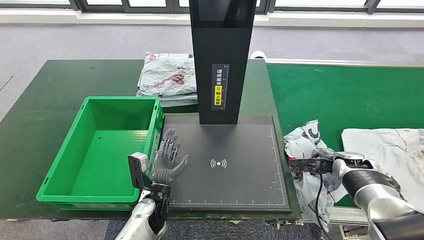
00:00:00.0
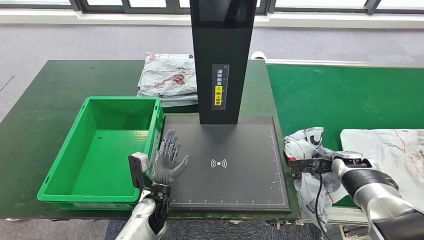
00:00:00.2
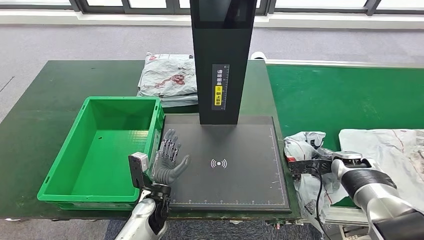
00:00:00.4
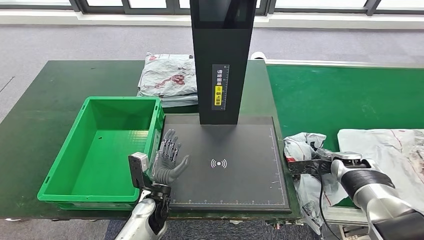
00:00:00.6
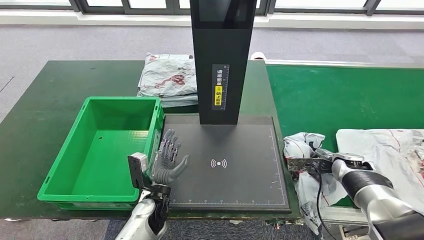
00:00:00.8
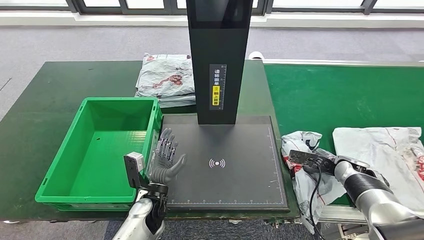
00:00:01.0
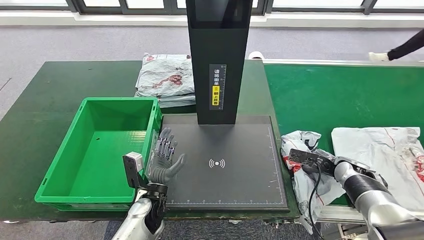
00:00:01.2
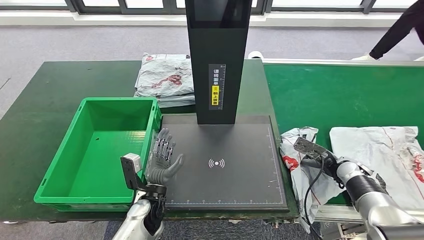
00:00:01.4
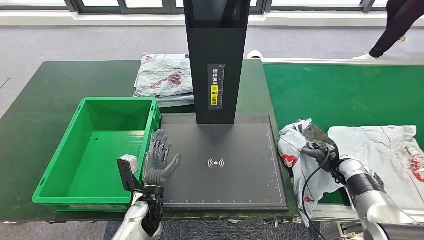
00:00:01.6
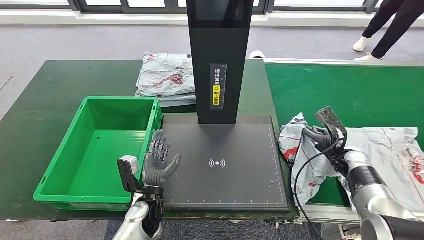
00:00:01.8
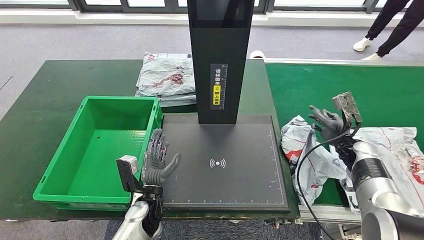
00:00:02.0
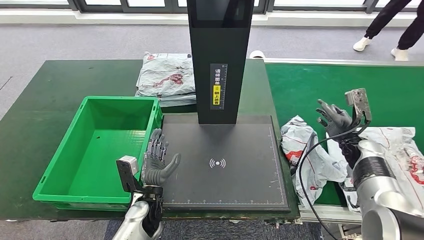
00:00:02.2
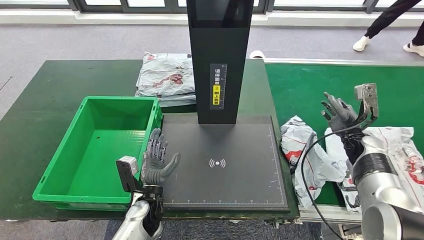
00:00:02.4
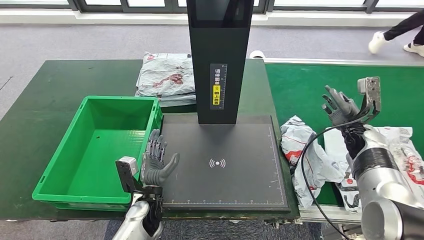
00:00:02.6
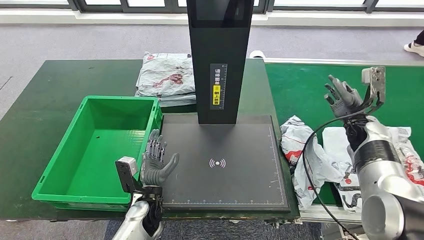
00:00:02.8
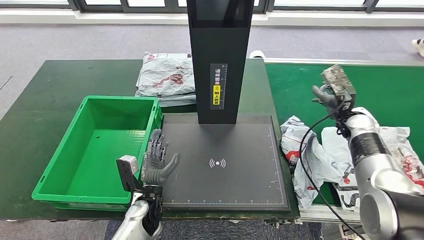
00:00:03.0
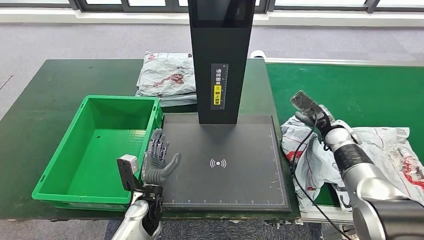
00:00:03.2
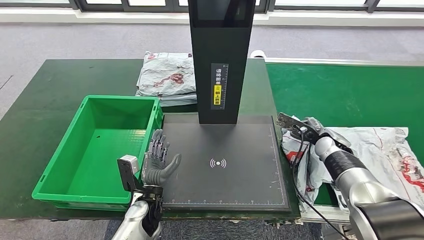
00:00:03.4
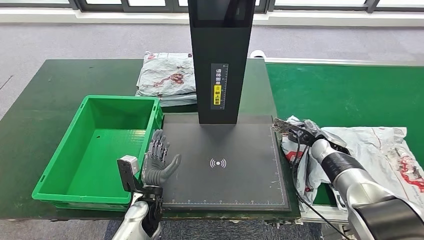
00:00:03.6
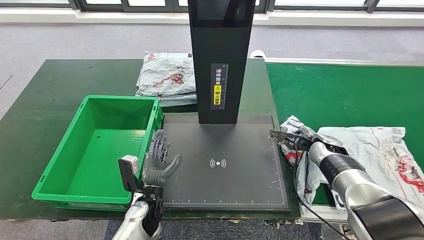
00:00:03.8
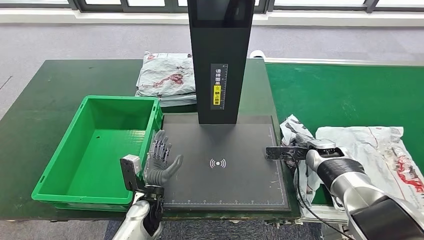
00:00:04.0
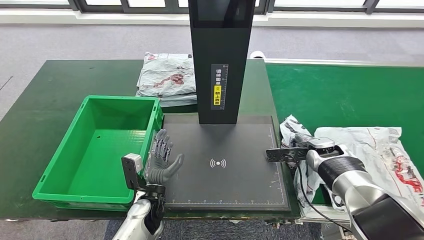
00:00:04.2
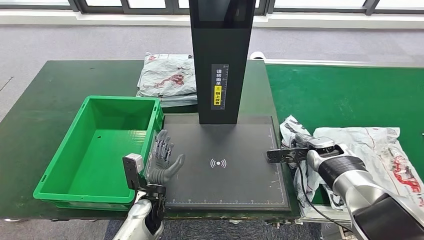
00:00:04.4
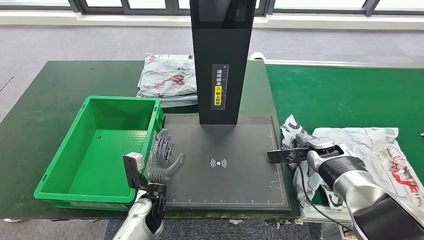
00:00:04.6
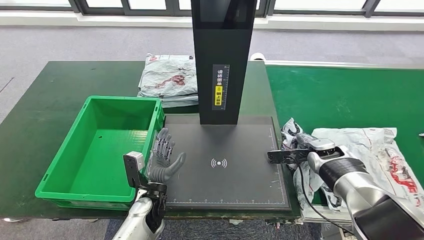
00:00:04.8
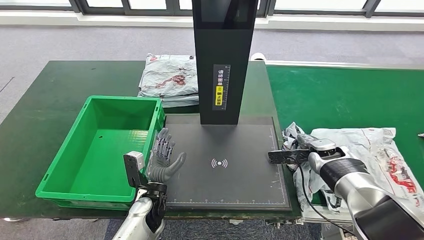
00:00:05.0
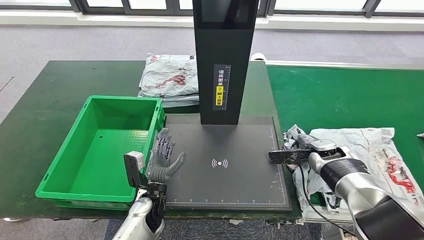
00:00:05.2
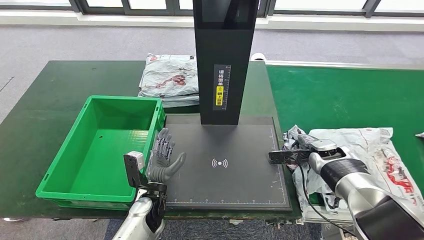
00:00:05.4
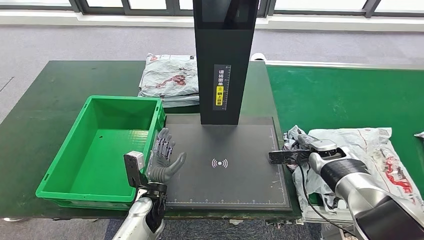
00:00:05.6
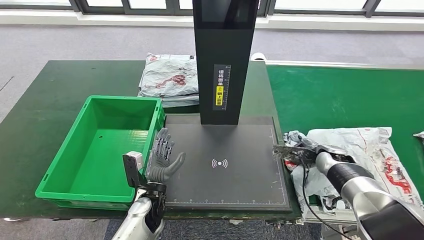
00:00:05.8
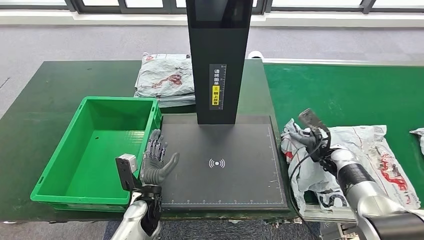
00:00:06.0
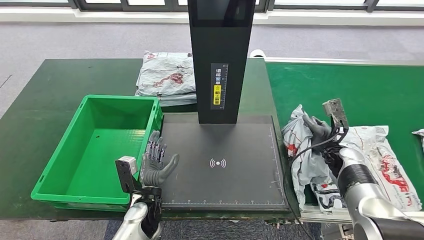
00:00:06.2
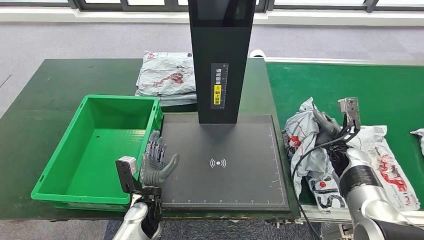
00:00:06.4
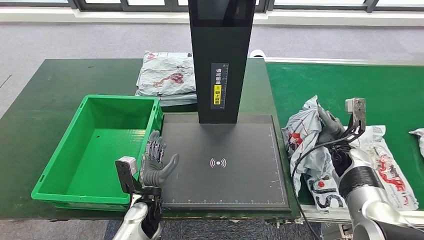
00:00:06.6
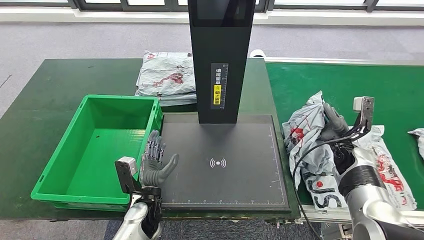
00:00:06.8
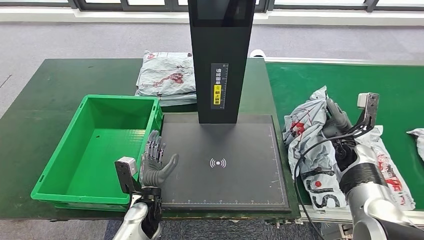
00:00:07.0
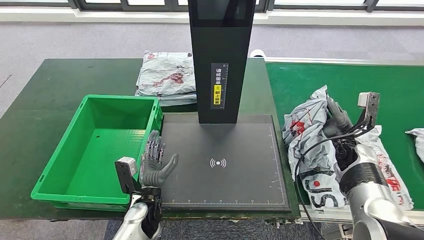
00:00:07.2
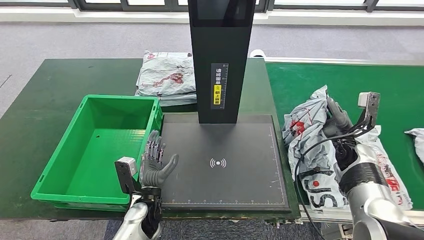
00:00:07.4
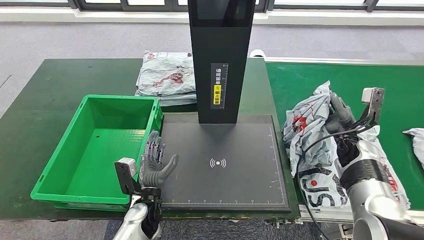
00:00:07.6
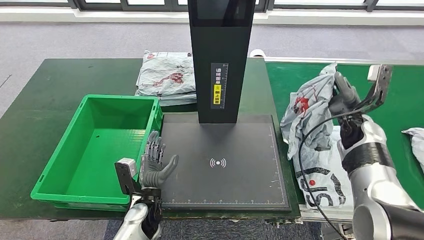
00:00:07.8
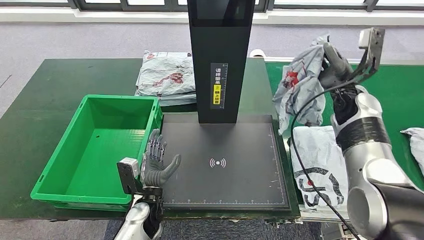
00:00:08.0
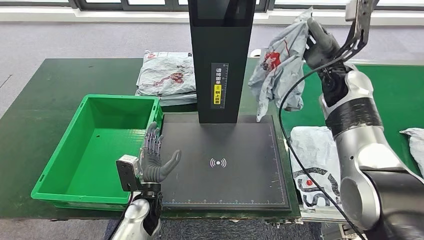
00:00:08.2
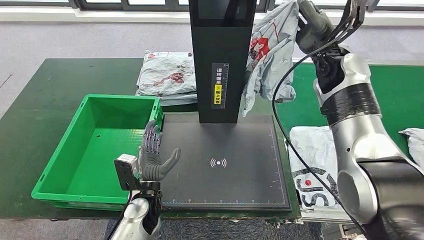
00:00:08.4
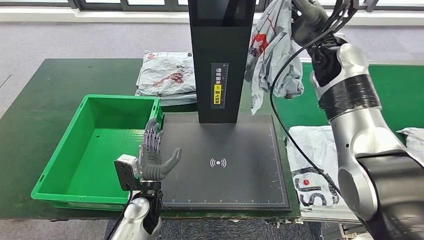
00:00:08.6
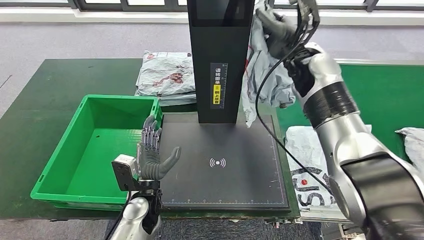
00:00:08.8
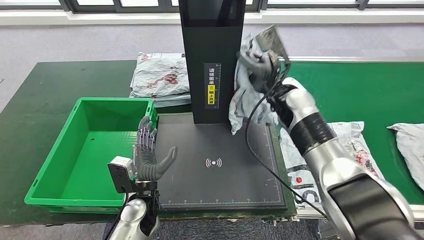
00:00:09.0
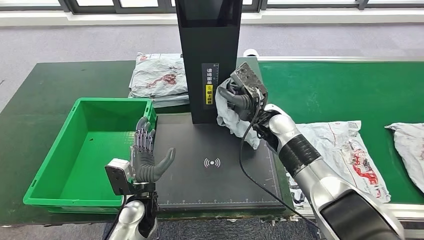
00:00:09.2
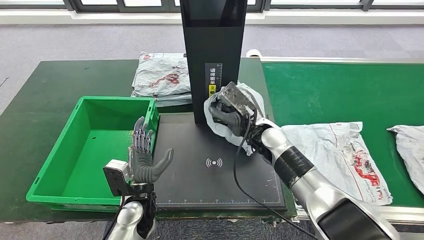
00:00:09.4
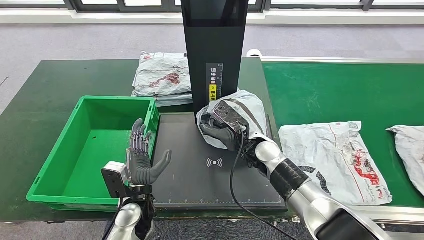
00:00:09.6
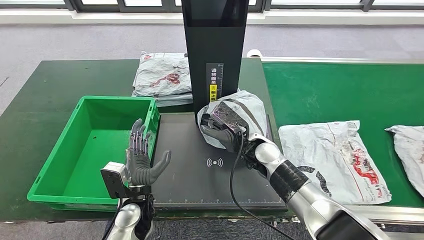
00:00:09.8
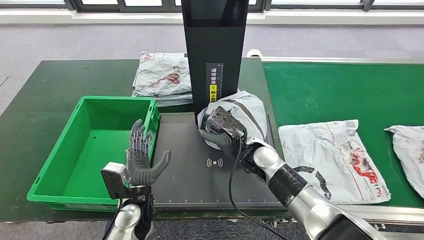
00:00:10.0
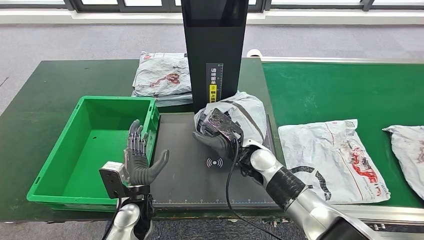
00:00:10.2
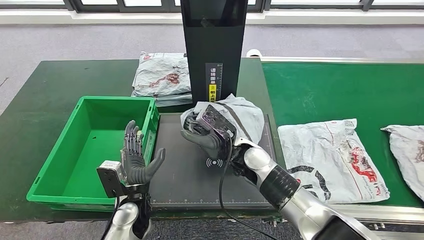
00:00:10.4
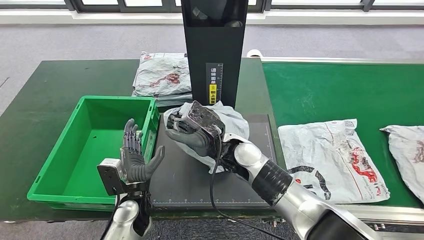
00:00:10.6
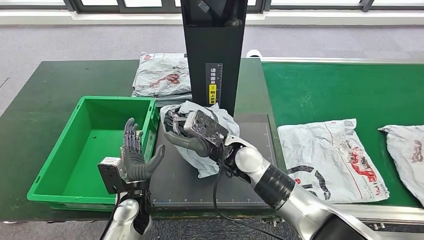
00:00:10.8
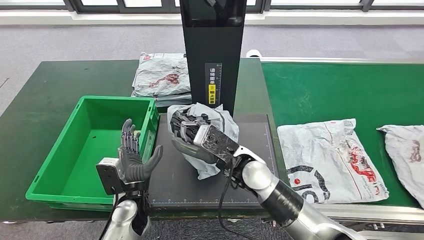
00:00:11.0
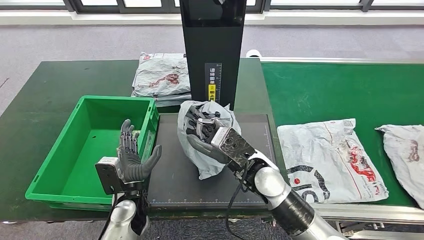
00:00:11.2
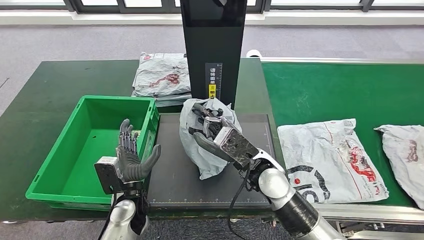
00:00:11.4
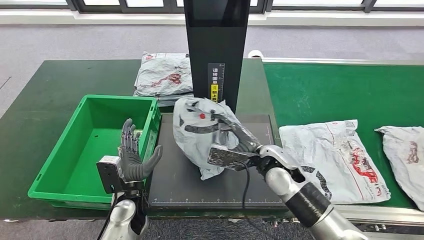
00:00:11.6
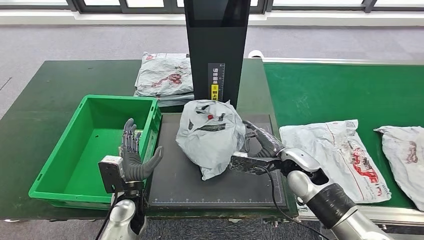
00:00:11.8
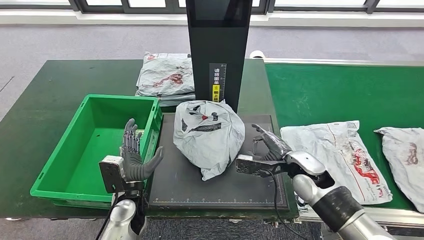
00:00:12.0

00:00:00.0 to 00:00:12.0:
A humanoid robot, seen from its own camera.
Step, 00:00:00.0 to 00:00:08.6: Take the parcel off the conveyor belt.

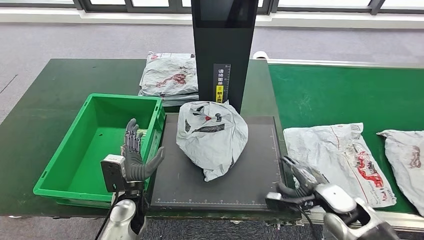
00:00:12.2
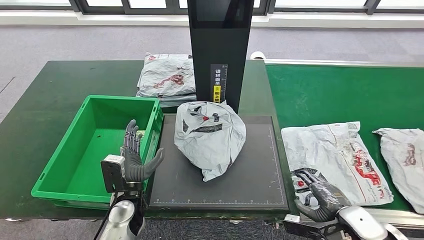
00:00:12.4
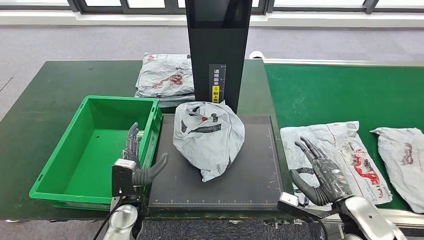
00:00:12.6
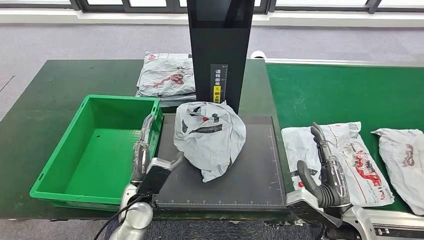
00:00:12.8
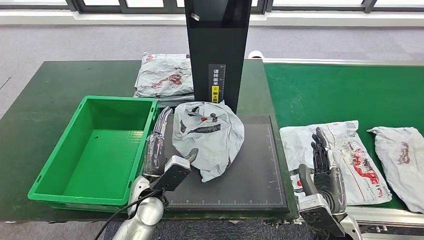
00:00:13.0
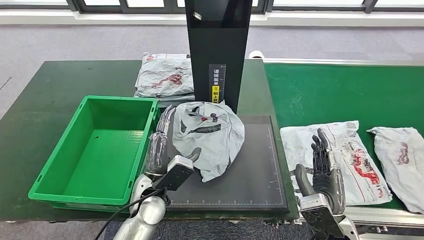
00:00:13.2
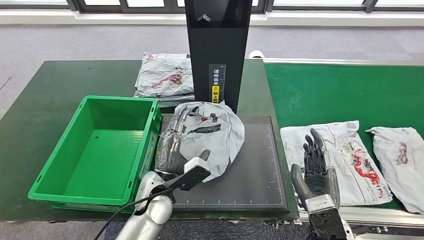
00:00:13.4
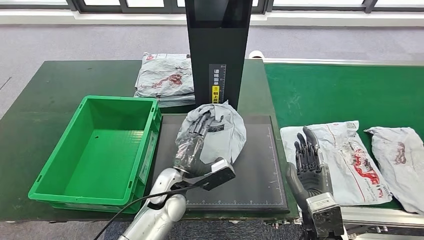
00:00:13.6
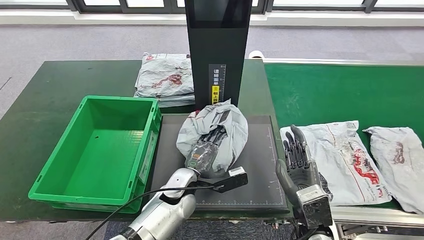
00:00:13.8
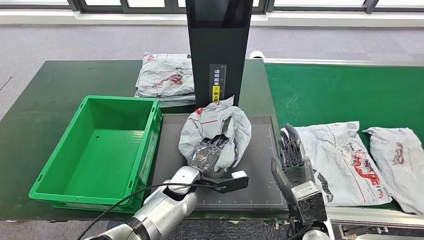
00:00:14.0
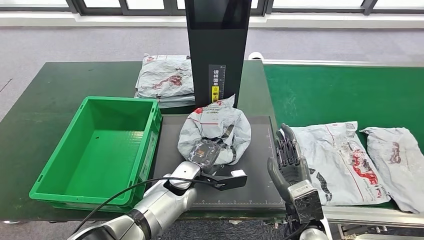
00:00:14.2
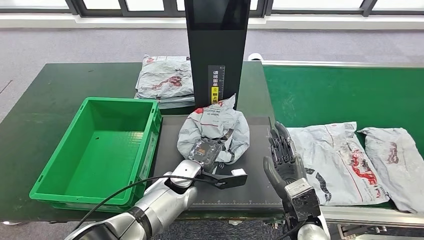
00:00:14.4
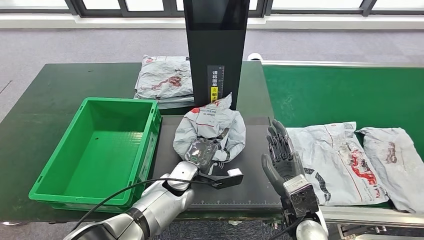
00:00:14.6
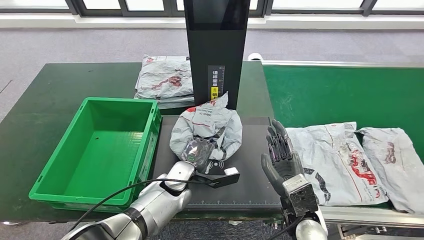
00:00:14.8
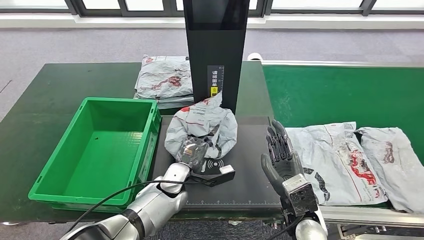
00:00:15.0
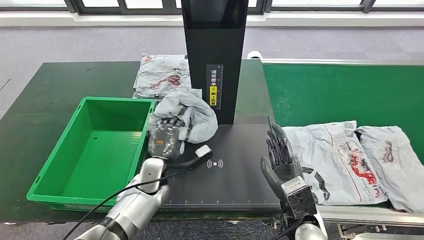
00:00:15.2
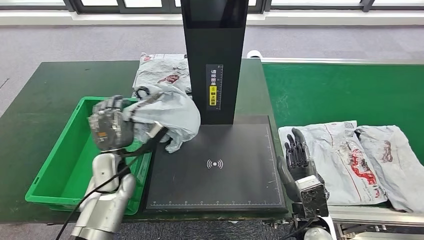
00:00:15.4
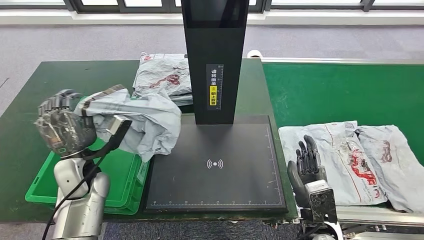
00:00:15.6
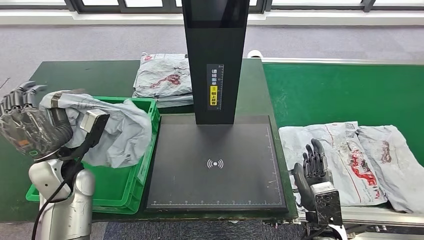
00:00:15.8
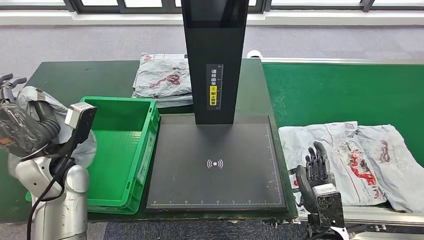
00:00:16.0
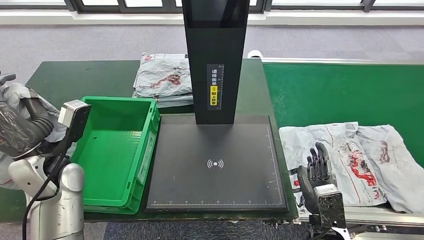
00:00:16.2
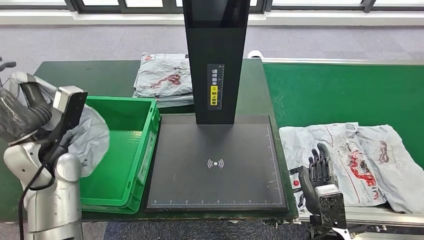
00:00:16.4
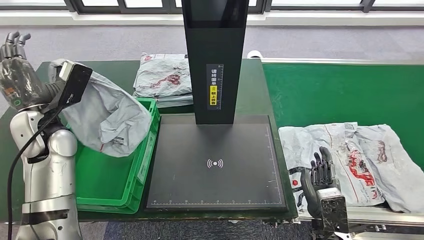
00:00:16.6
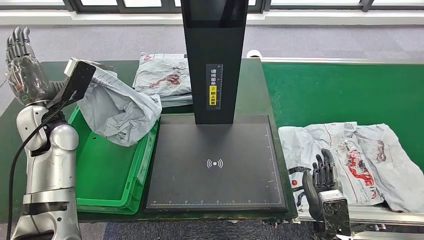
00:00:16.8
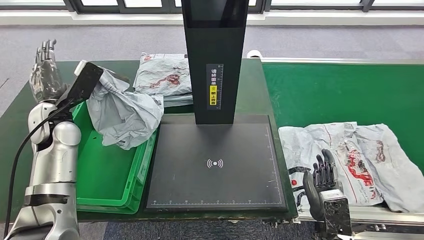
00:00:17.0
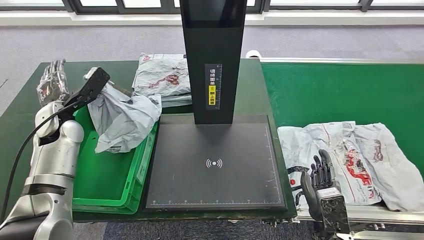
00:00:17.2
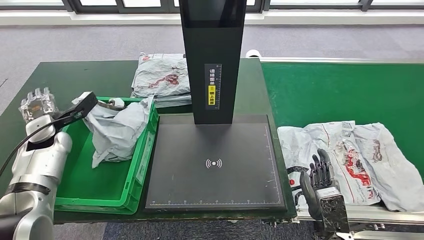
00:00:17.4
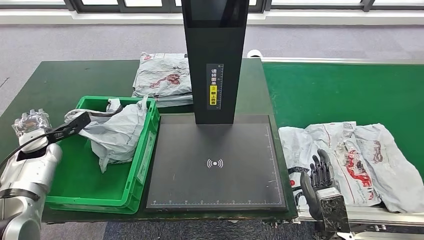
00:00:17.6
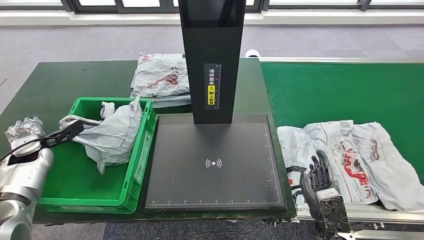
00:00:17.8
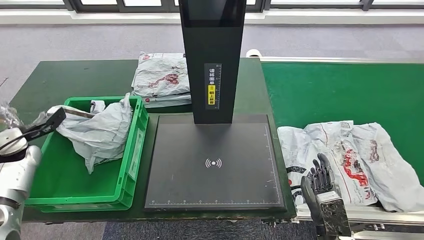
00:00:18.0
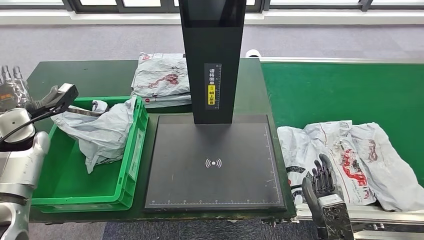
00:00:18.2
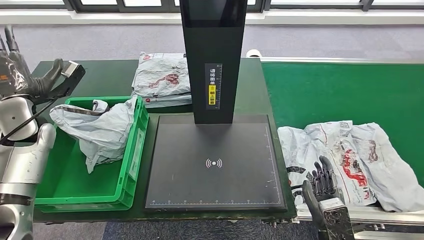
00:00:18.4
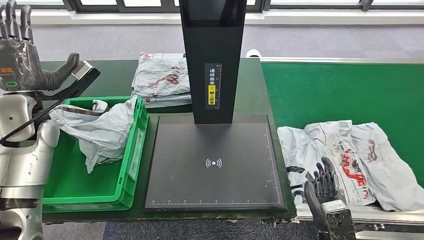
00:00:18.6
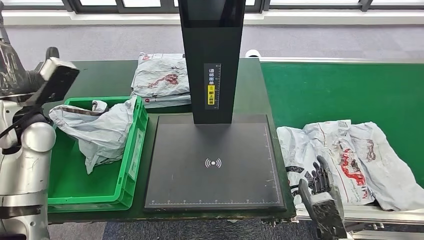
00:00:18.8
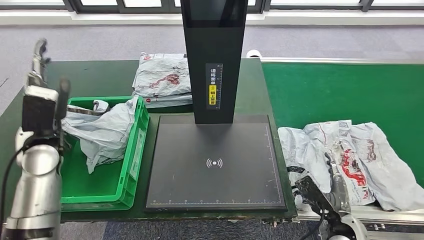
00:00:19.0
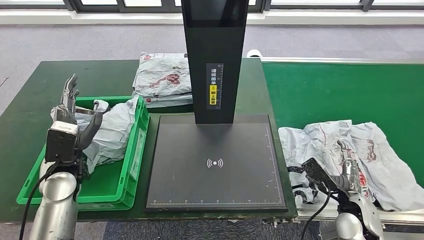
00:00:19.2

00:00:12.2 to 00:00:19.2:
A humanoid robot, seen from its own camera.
Step, 00:00:13.0 to 00:00:15.8: Pick up the parcel from the inbound machine.
Step, 00:00:16.0 to 00:00:19.0: Put the parcel inside the courier box.
